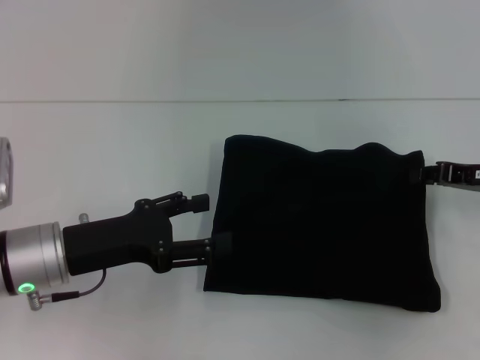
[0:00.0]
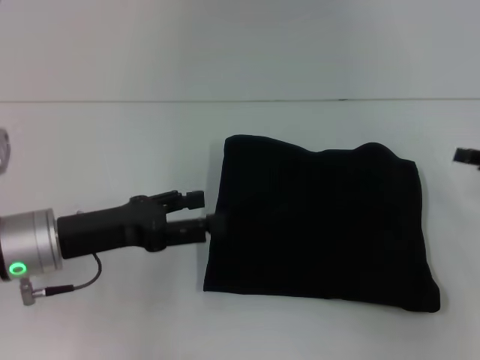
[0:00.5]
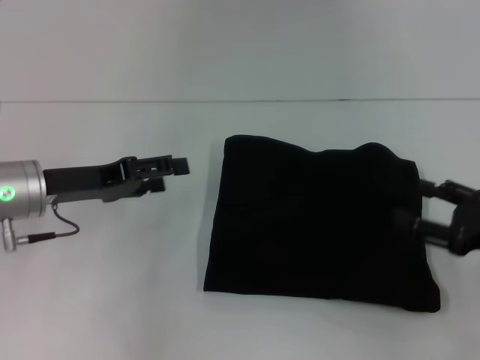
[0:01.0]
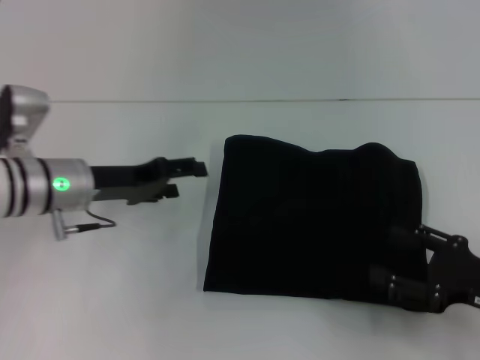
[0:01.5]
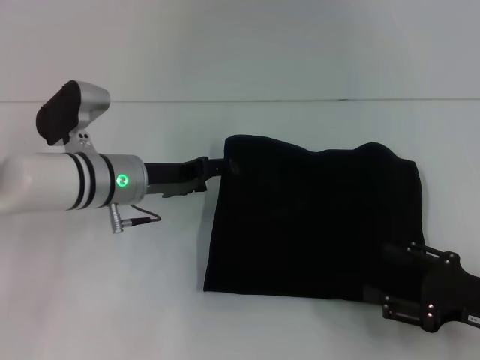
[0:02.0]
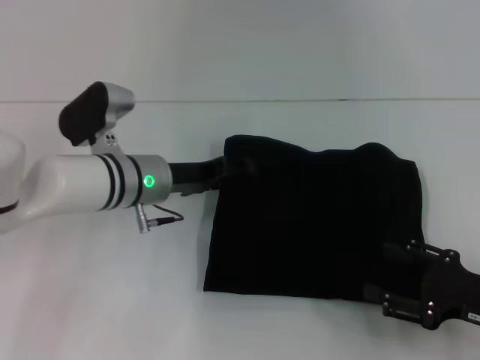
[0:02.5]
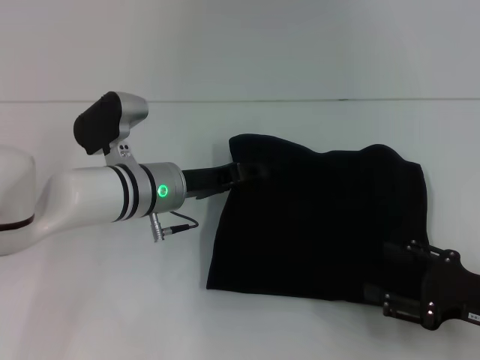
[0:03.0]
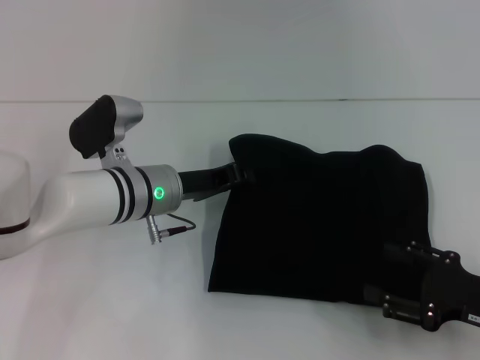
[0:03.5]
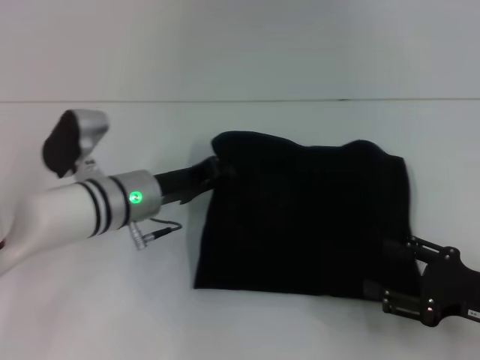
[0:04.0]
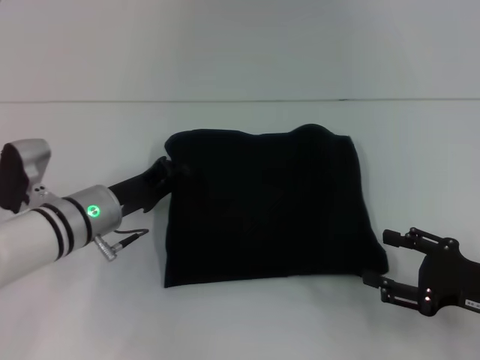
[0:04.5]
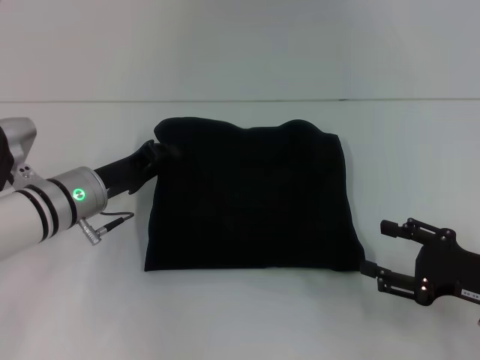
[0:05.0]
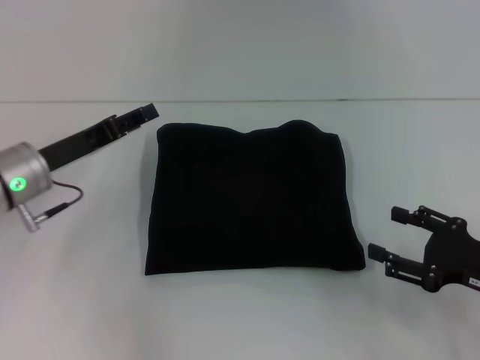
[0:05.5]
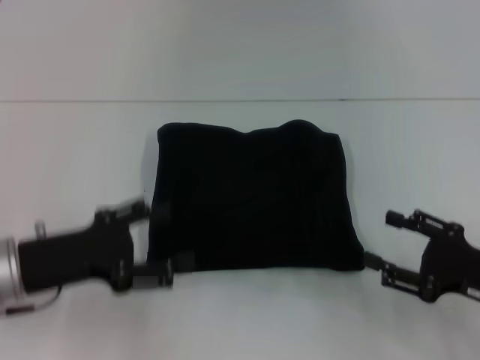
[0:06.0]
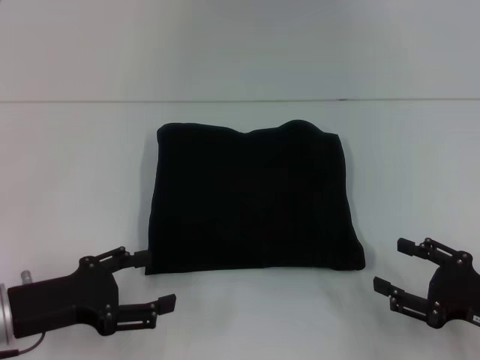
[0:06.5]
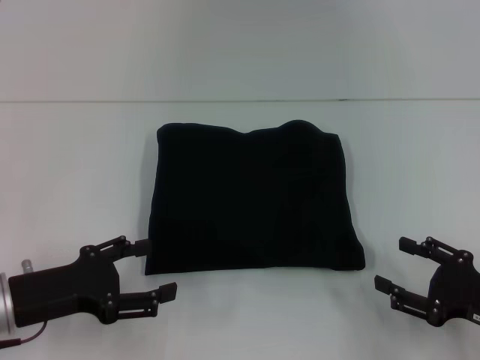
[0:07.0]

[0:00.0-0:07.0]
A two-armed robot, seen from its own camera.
0.0 to 2.0 s: The right gripper shifts some 15 cm backward and downward, and opens up. The left gripper moves forward and to the right, roughly 10 cm.
2.0 to 3.5 s: The left gripper closes up.
3.5 to 5.0 s: The left gripper heads to the left, covering some 10 cm, and closes up.
5.0 to 7.0 s: The left gripper is displaced backward and to the left by roughly 15 cm, and opens.

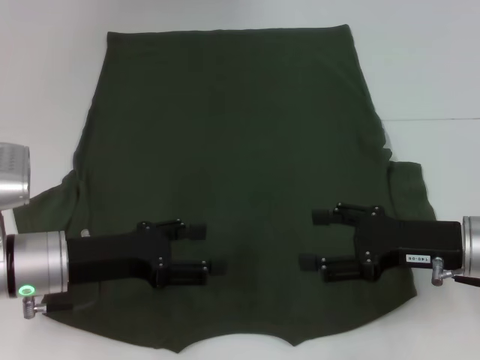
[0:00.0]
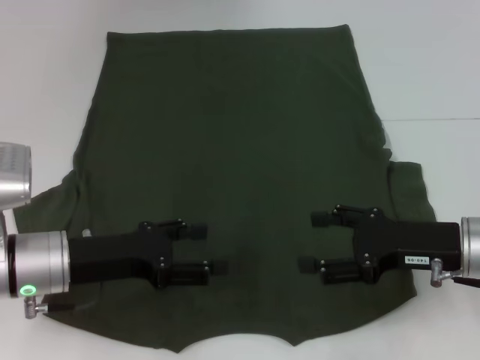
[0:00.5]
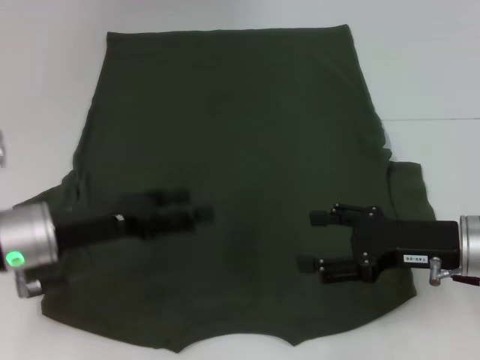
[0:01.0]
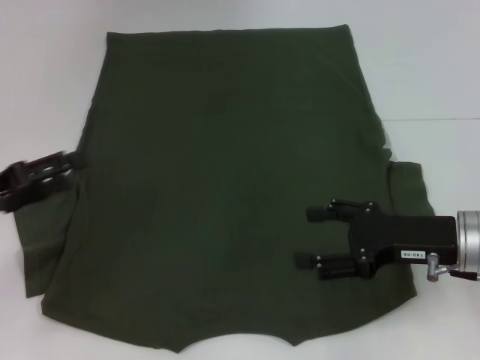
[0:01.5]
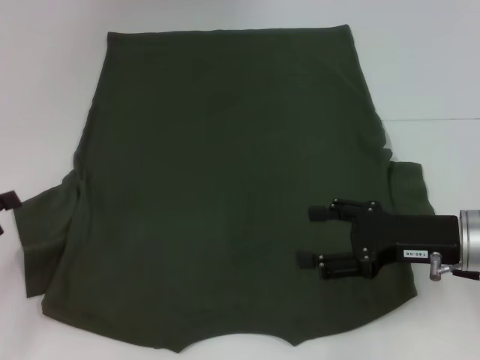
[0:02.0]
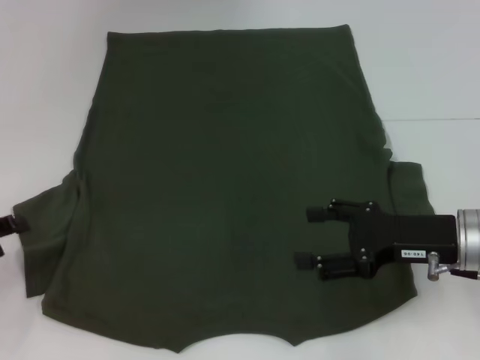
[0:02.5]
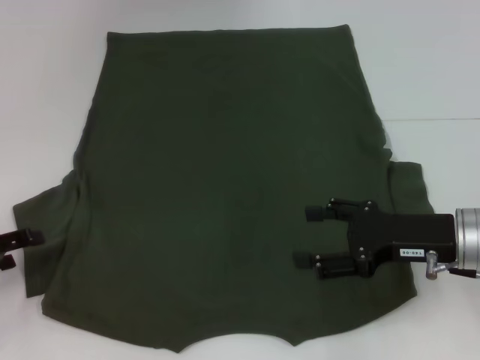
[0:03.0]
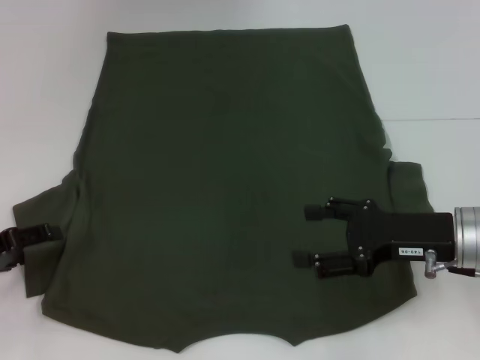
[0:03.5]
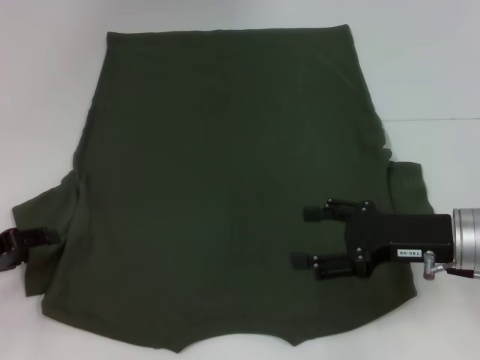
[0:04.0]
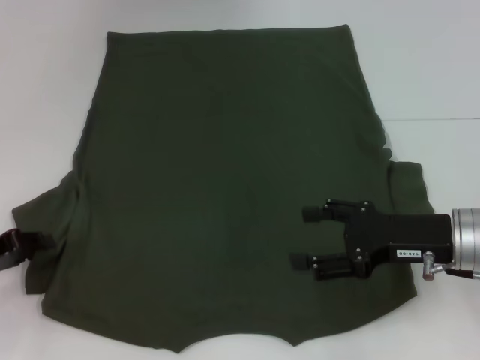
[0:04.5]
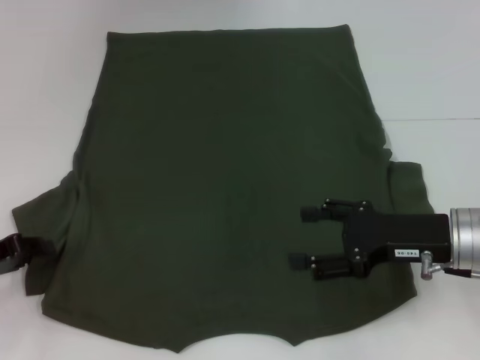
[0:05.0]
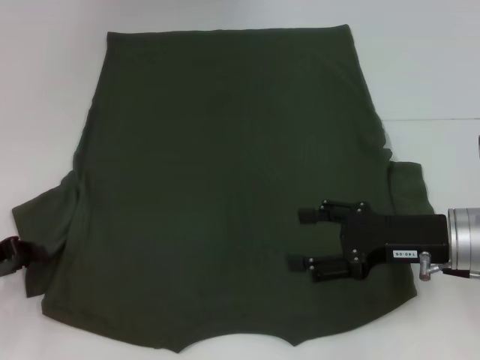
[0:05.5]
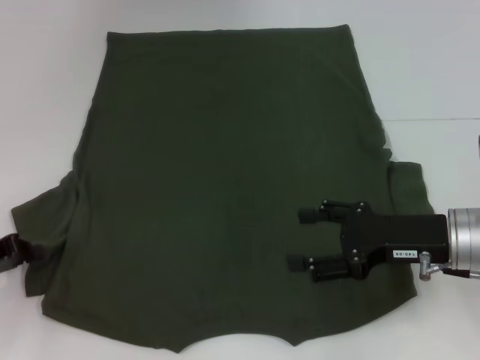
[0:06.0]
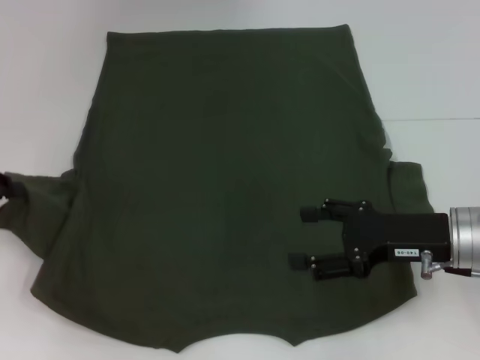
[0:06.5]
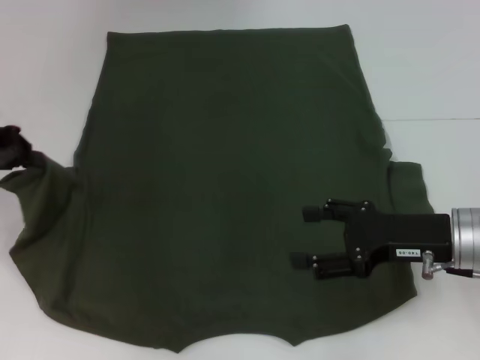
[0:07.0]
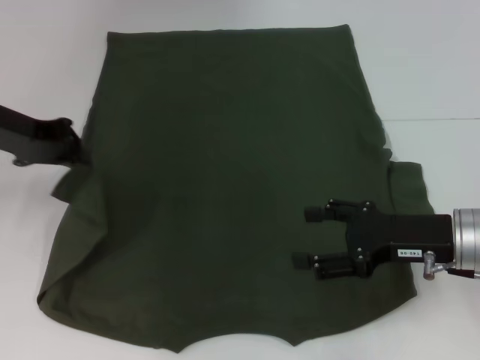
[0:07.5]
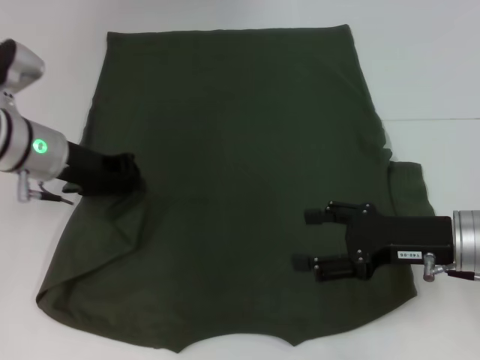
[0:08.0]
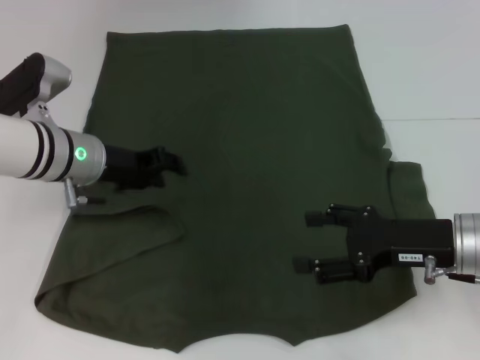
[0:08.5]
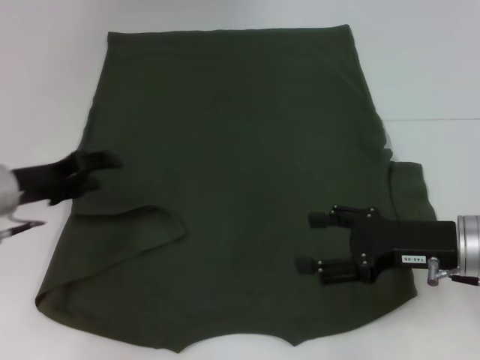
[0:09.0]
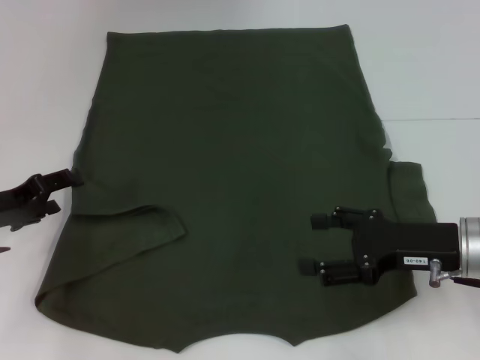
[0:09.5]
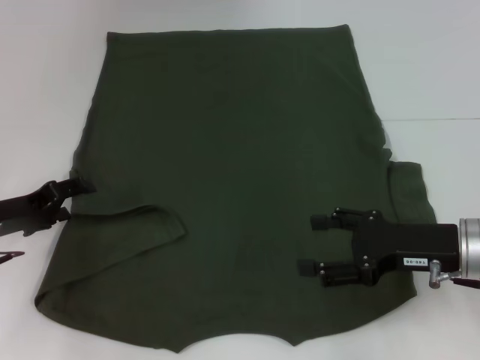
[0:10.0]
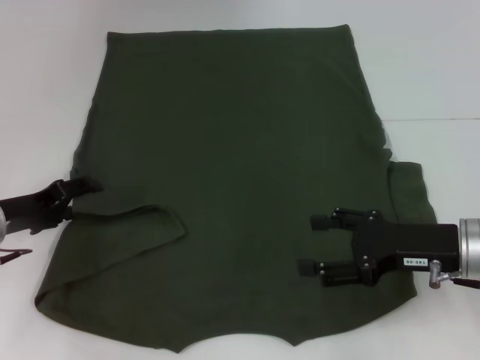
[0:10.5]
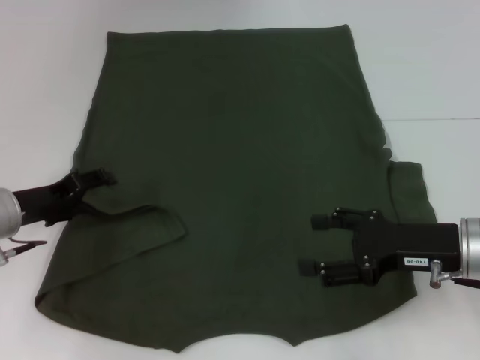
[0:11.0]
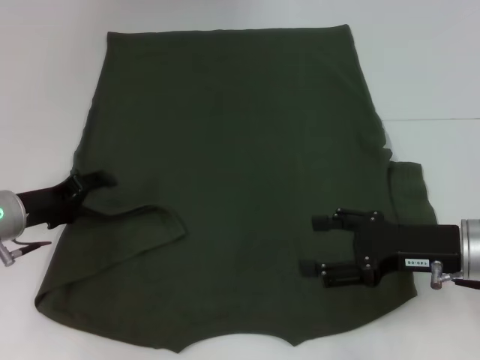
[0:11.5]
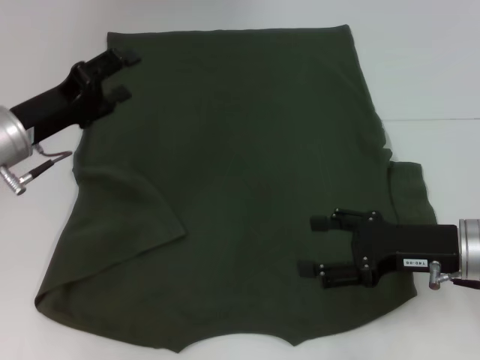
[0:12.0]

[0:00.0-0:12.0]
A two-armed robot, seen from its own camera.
Step, 0.0 to 11.5 s: Fold the bottom left sleeve with your left hand.
0.0 to 2.0 s: The left gripper travels to the left by approximately 15 cm.
2.0 to 4.0 s: The left gripper moves roughly 5 cm.
6.0 to 8.0 s: The left gripper goes roughly 20 cm to the right, forward and upward.
8.0 to 10.0 s: The left gripper heads downward, to the left and backward, covering approximately 15 cm, and opens.
10.0 to 12.0 s: The left gripper goes about 5 cm upward.

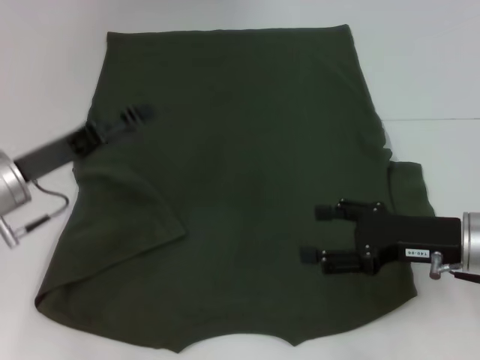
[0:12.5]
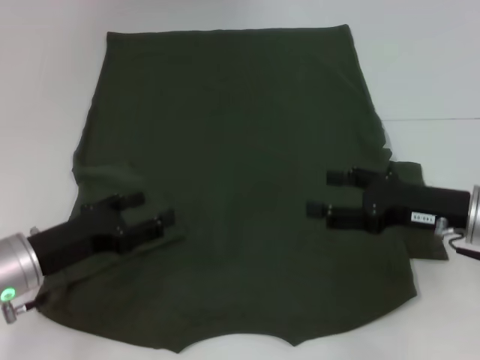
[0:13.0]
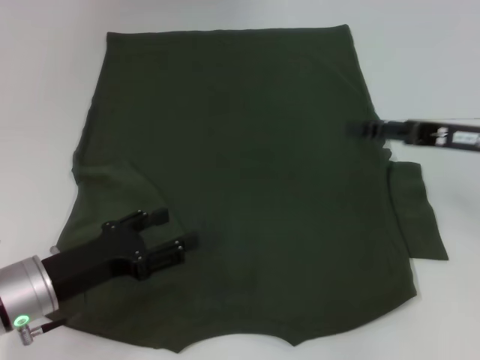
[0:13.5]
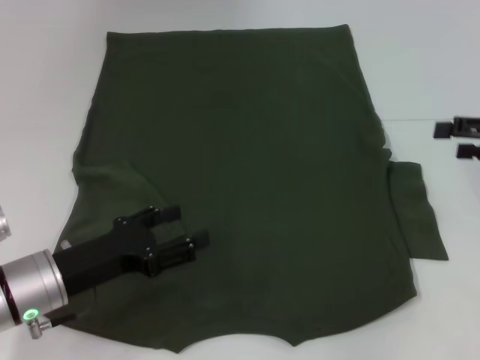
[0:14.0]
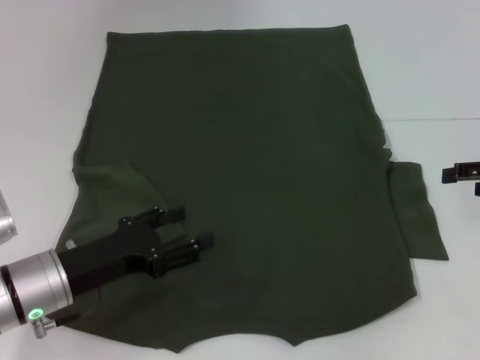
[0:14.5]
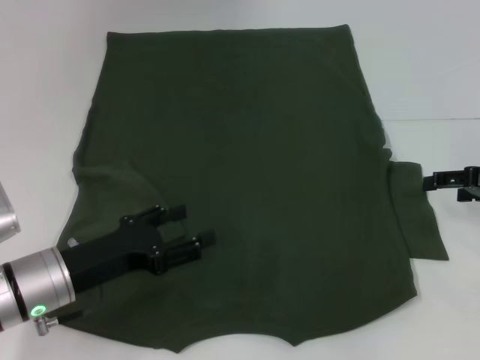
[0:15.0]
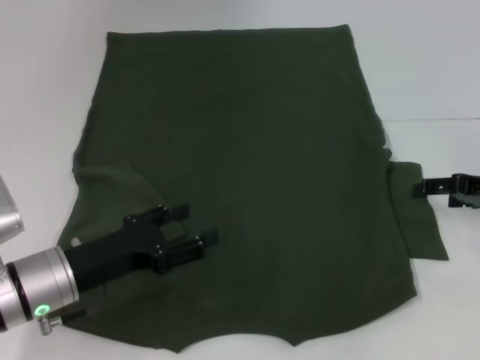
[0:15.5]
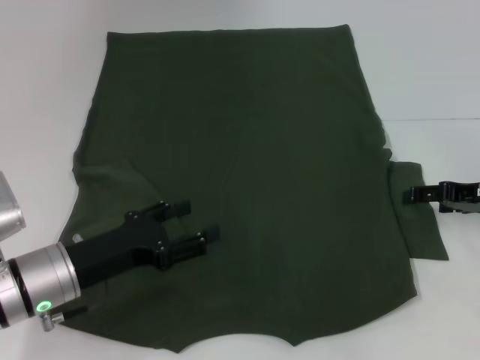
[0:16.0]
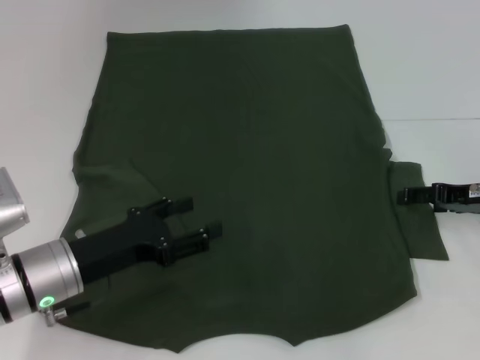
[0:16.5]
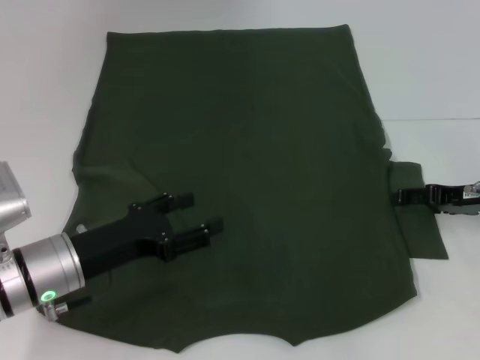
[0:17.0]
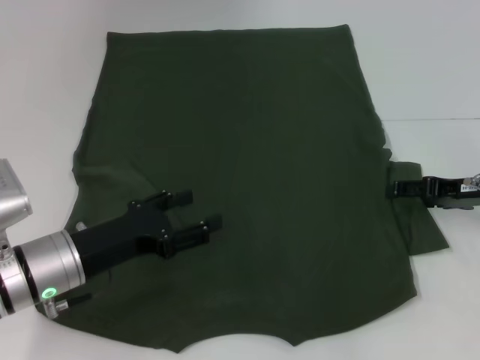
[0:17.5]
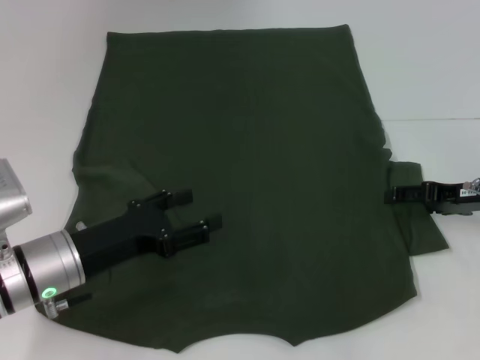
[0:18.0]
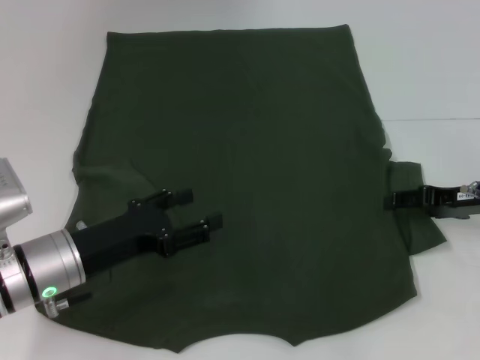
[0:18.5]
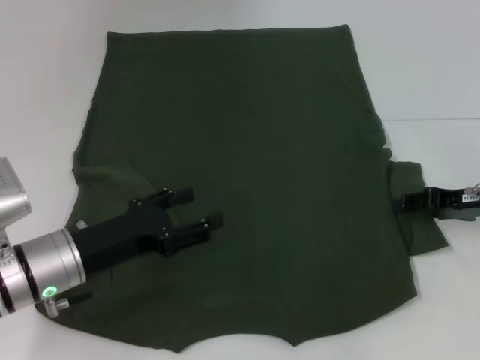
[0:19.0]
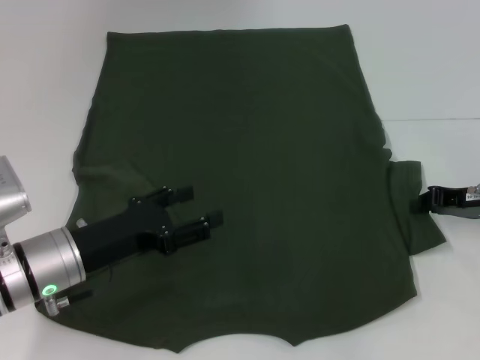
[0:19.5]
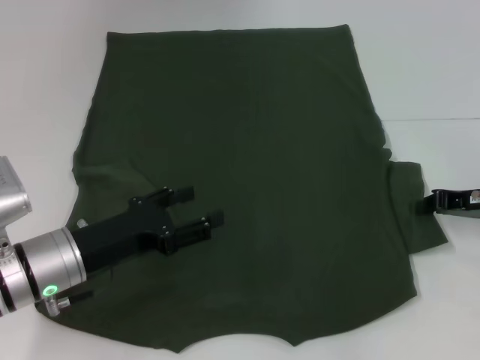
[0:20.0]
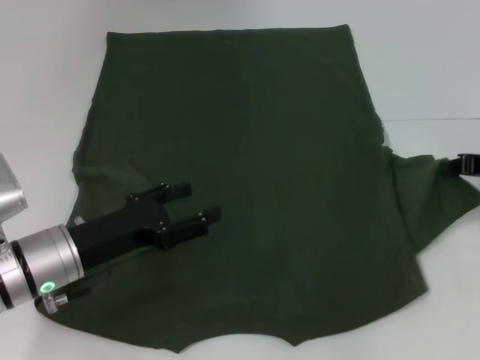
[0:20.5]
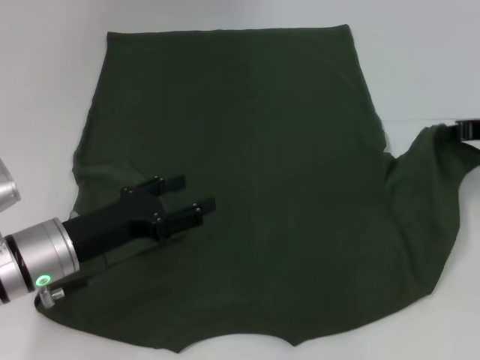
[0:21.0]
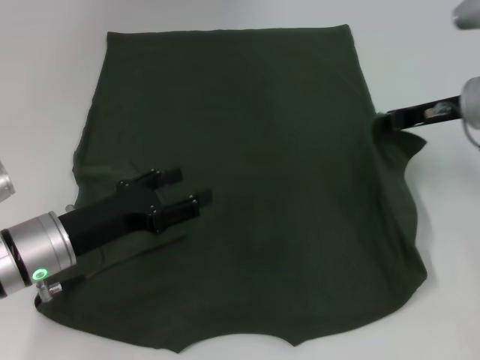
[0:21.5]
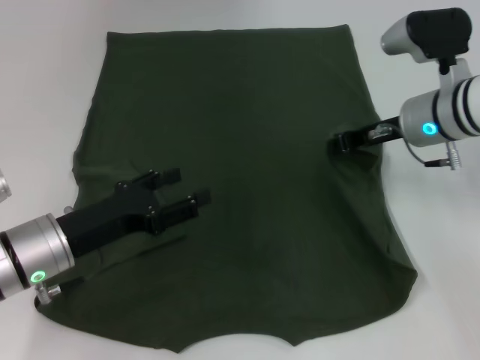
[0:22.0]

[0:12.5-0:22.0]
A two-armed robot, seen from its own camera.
12.5 to 14.5 s: The right gripper goes roughly 15 cm to the right and forward; the left gripper shifts about 10 cm backward and downward.
14.5 to 16.5 s: The right gripper travels to the left and downward by approximately 5 cm.
16.5 to 18.0 s: The grippers stay close to where they were, moving slightly.
18.0 to 20.0 s: The right gripper closes its fingers.
20.0 to 22.0 s: The right gripper moves to the left, forward and upward, some 15 cm.
